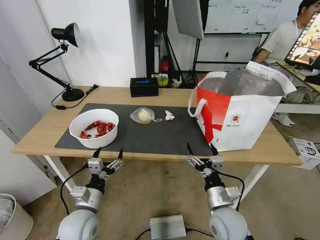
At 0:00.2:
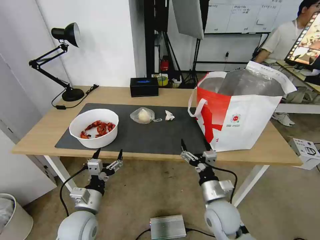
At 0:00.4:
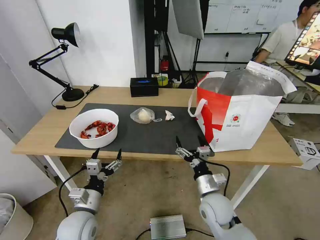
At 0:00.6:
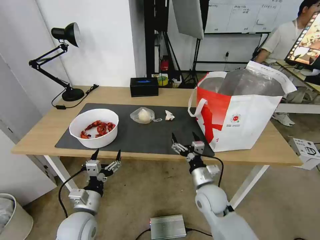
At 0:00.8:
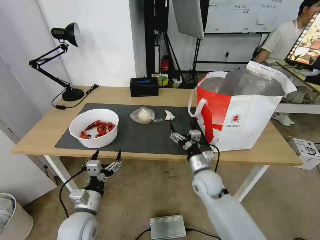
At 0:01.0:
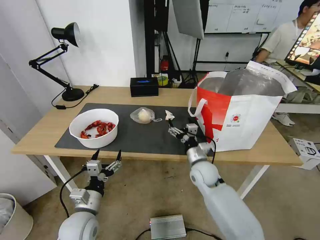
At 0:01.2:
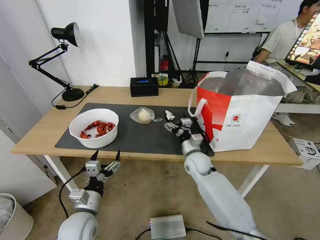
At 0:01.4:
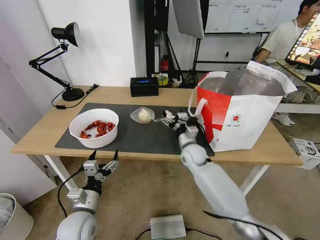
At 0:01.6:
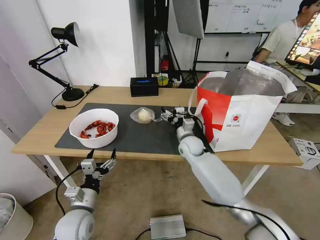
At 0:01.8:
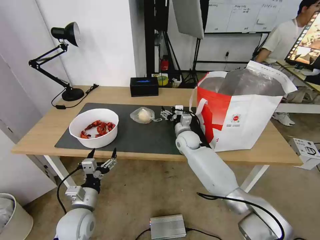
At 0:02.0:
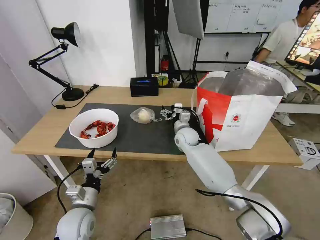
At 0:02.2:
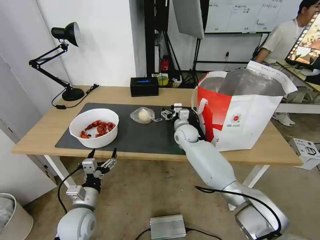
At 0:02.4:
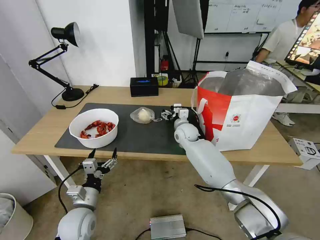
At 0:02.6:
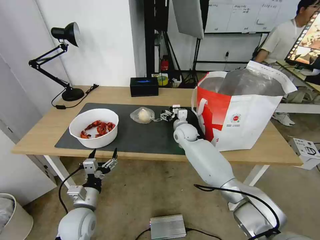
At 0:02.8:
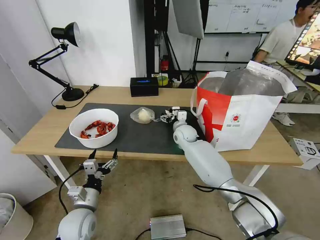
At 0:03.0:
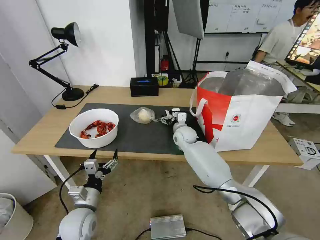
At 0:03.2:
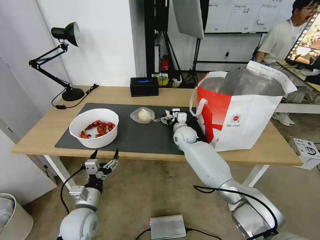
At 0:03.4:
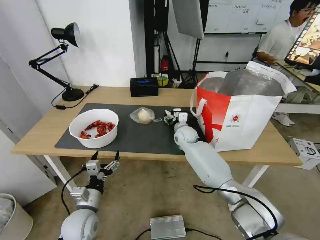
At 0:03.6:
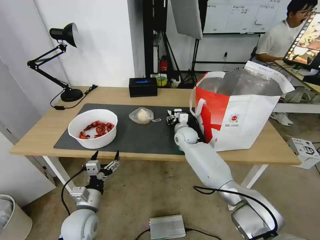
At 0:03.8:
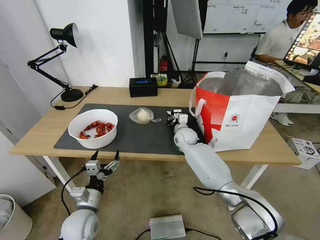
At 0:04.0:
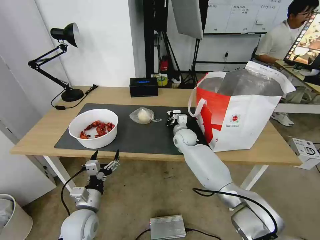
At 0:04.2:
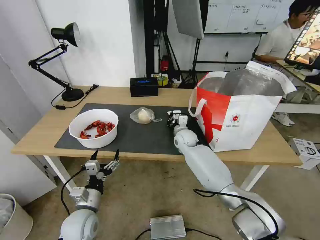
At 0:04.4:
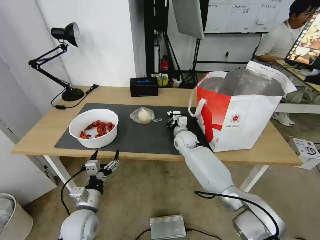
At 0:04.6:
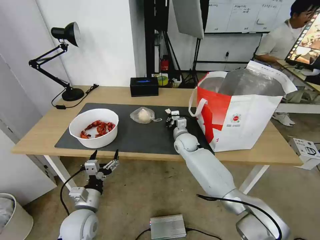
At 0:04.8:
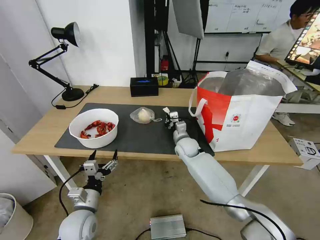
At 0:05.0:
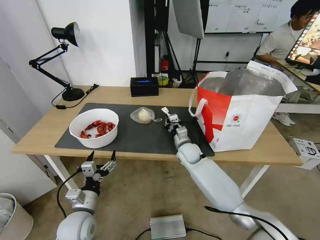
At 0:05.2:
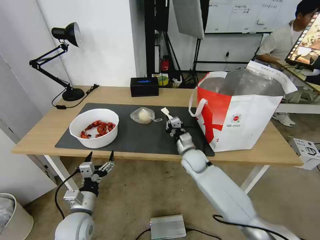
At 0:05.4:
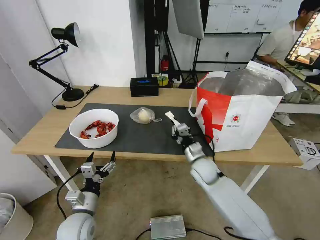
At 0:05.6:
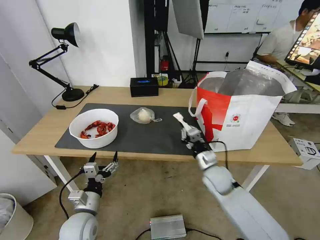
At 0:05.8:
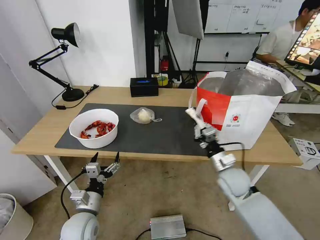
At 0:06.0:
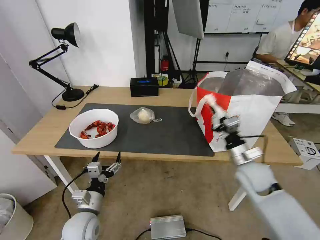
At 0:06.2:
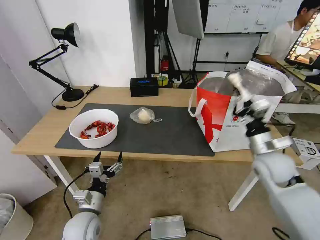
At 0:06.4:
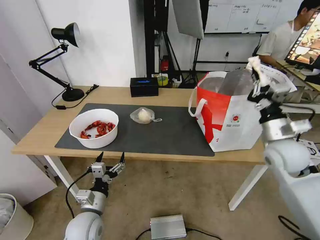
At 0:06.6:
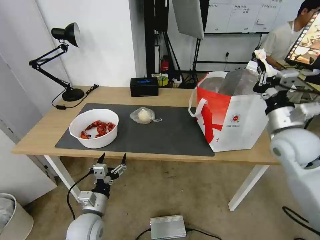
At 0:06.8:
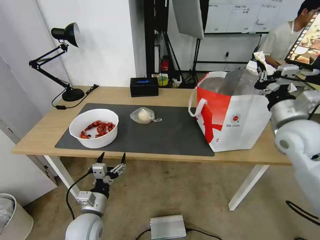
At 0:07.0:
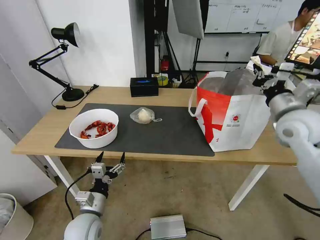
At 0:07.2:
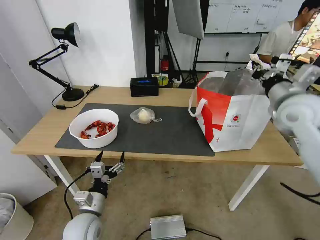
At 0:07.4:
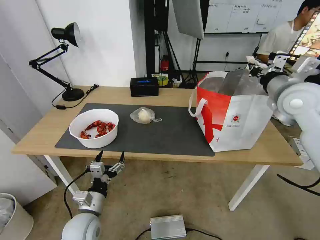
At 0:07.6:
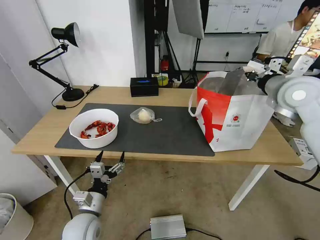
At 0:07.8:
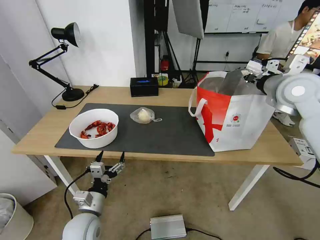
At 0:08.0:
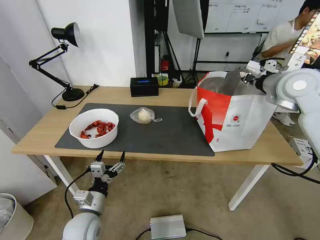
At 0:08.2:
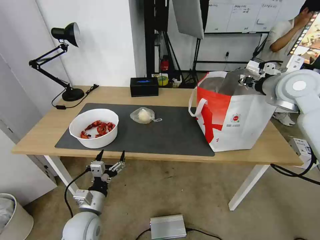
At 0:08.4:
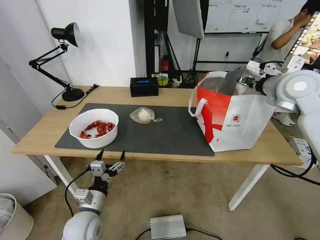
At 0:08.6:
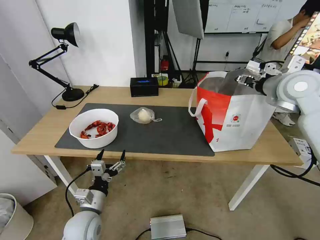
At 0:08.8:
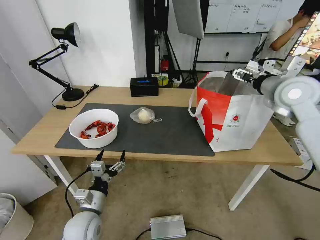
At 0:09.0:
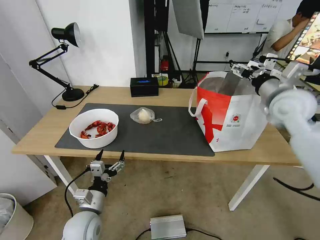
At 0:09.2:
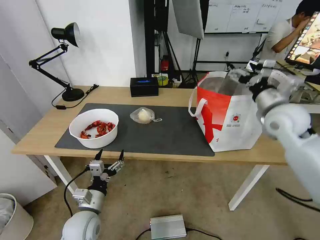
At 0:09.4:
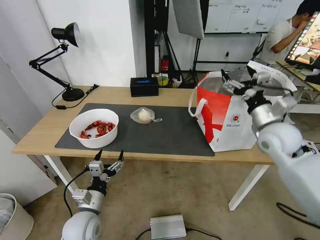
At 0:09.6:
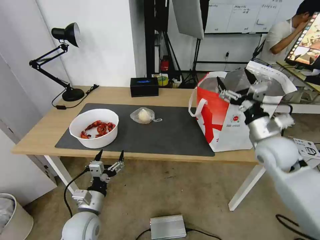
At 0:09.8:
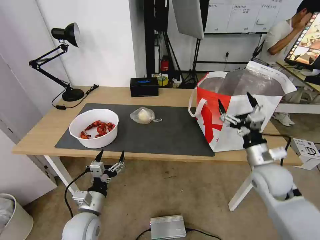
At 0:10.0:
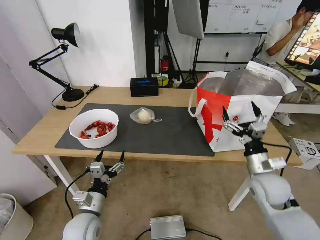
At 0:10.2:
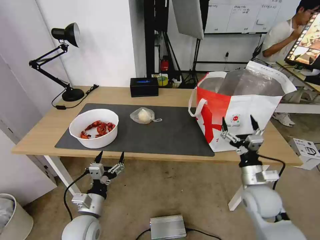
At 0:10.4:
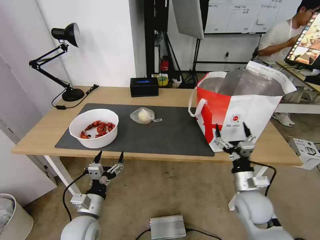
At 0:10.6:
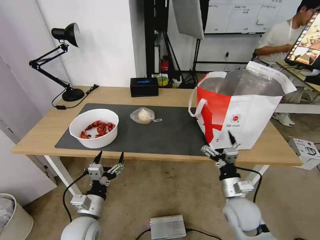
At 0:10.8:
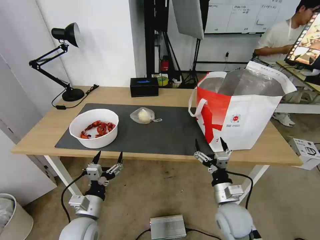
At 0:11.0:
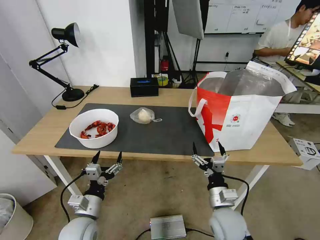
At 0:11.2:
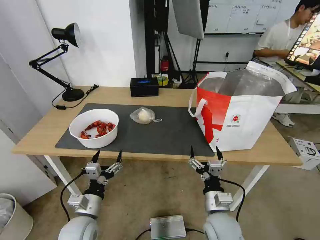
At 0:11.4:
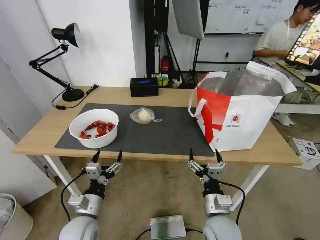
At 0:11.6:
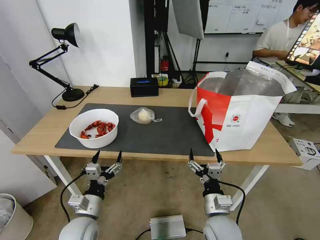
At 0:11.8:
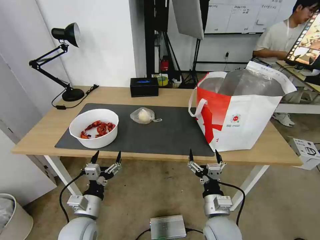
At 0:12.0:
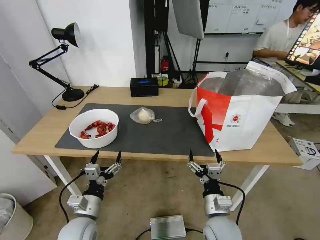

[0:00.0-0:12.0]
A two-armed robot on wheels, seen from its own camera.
Task of the whole recording: Pick up the trash from the table and place it into the takeout bag.
0:00.0 to 0:01.6: The right gripper travels forward by roughly 30 cm.
0:01.6 to 0:03.0: The right gripper is displaced forward by roughly 5 cm.
0:03.0 to 0:04.4: The right gripper closes its fingers.
0:04.4 to 0:06.0: The right gripper goes some 25 cm backward and to the right.
0:06.0 to 0:07.6: The right gripper heads upward and forward, covering approximately 25 cm.
0:07.6 to 0:09.0: The right gripper opens its fingers.
0:09.0 to 0:10.4: The right gripper goes approximately 30 cm downward and backward.
0:10.4 to 0:12.0: The right gripper moves to the left and backward, roughly 15 cm.

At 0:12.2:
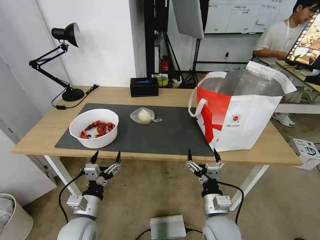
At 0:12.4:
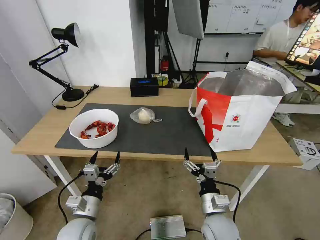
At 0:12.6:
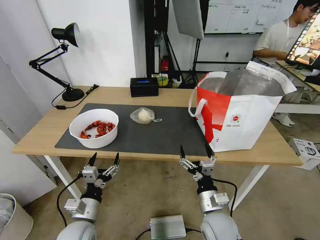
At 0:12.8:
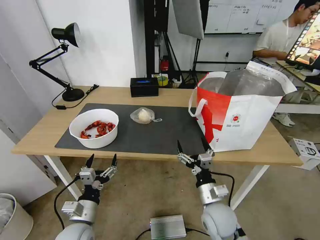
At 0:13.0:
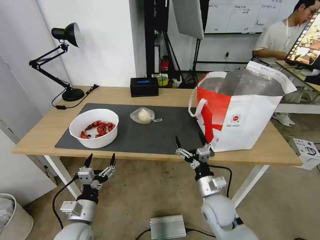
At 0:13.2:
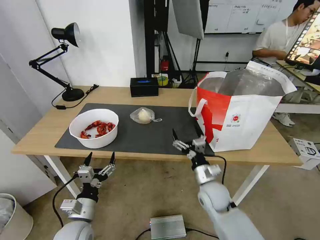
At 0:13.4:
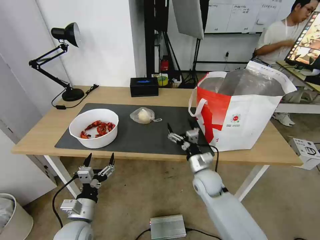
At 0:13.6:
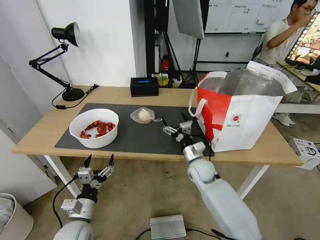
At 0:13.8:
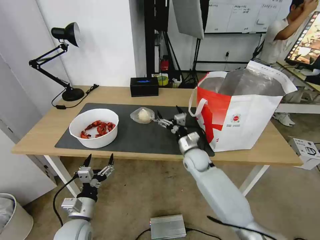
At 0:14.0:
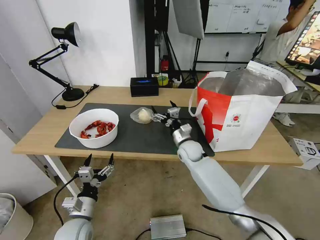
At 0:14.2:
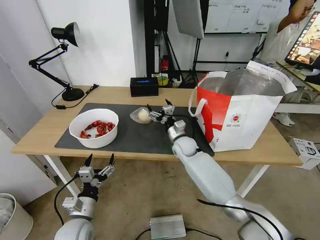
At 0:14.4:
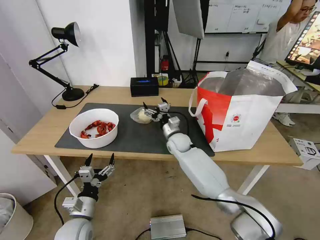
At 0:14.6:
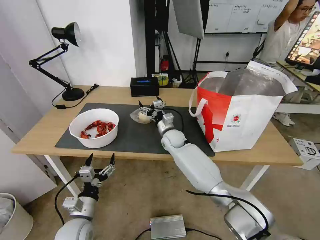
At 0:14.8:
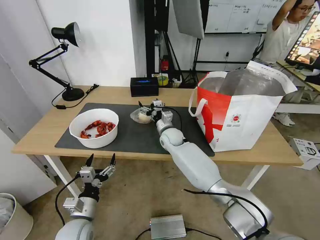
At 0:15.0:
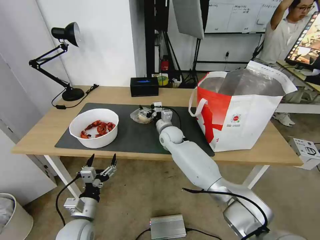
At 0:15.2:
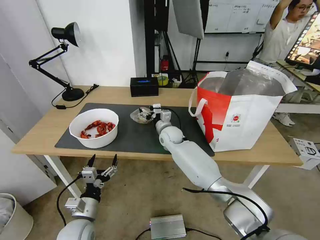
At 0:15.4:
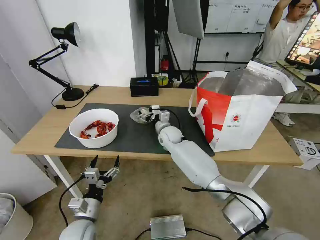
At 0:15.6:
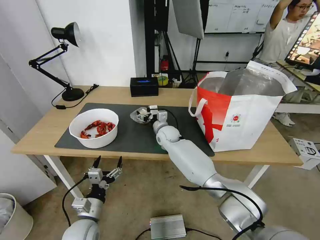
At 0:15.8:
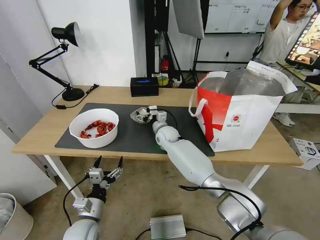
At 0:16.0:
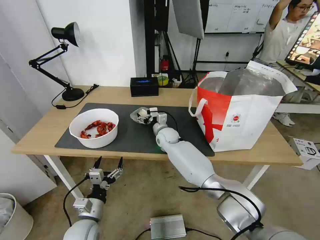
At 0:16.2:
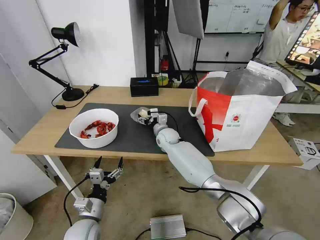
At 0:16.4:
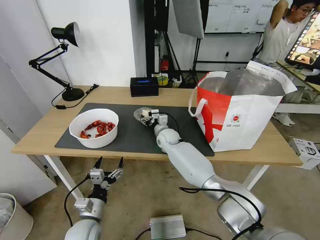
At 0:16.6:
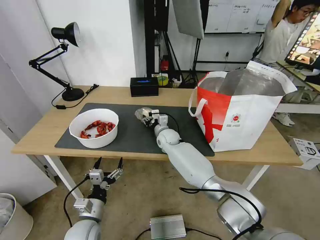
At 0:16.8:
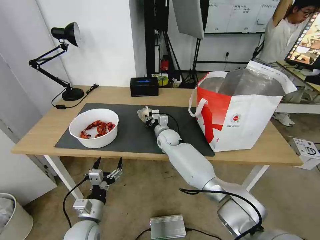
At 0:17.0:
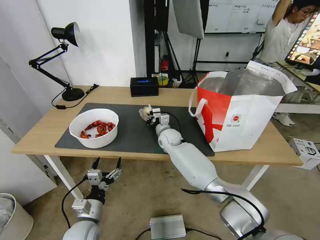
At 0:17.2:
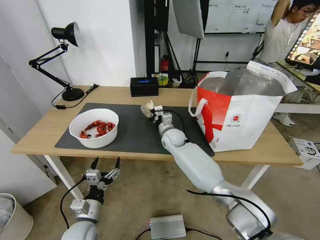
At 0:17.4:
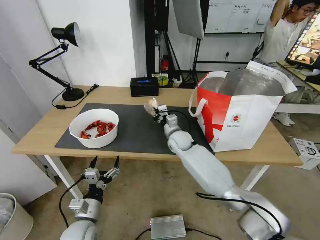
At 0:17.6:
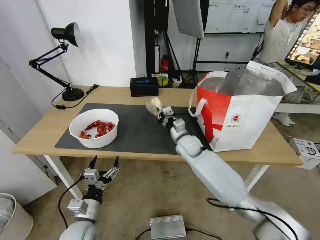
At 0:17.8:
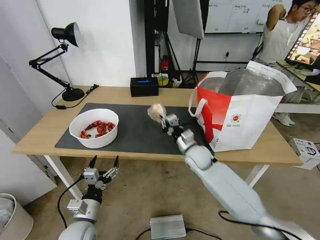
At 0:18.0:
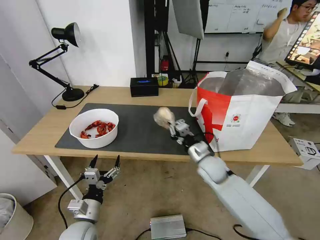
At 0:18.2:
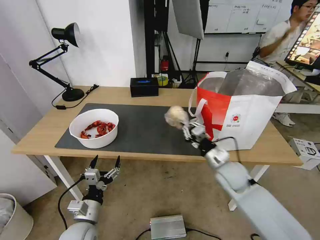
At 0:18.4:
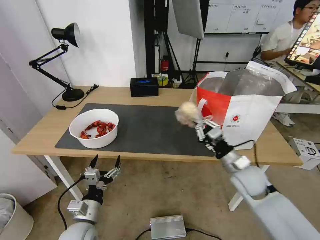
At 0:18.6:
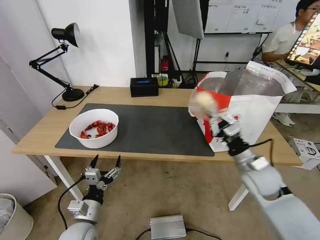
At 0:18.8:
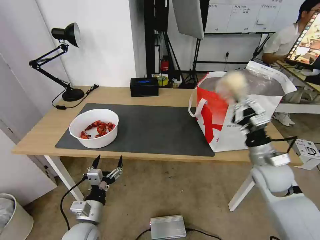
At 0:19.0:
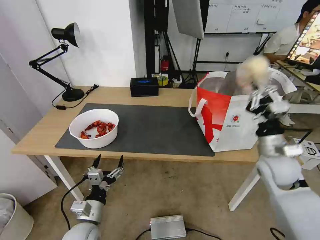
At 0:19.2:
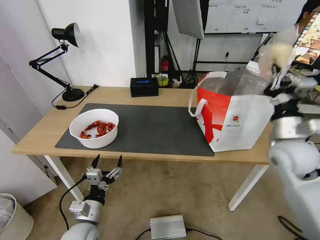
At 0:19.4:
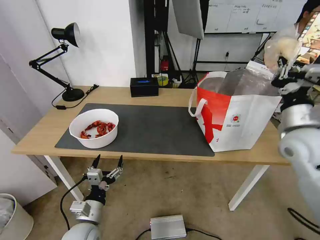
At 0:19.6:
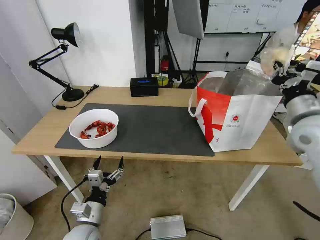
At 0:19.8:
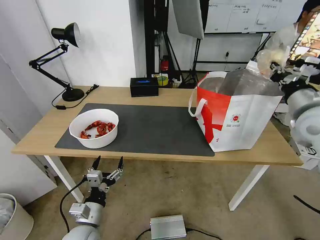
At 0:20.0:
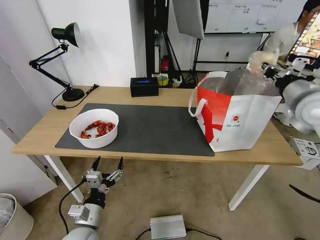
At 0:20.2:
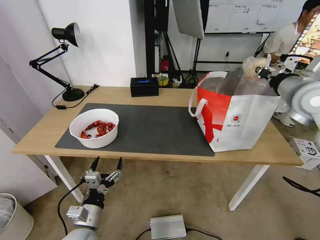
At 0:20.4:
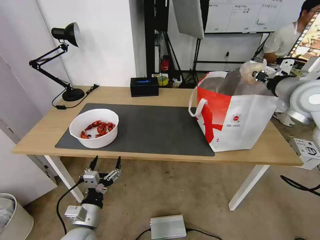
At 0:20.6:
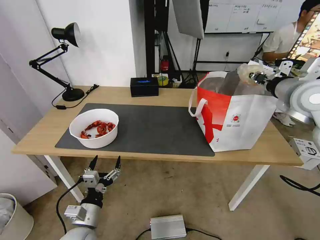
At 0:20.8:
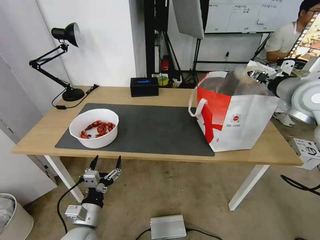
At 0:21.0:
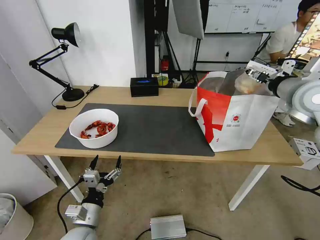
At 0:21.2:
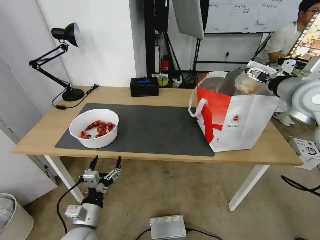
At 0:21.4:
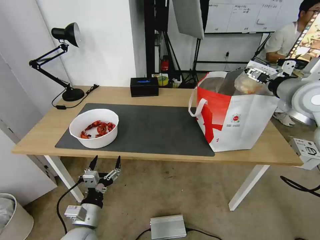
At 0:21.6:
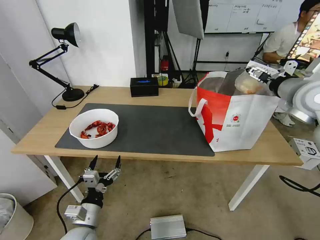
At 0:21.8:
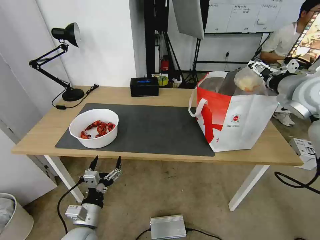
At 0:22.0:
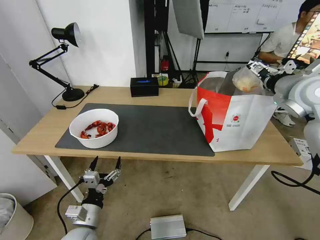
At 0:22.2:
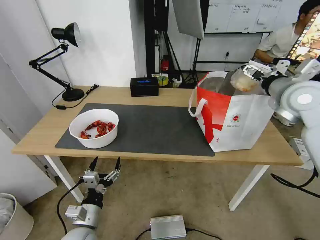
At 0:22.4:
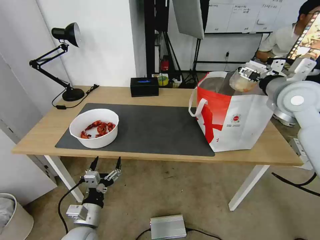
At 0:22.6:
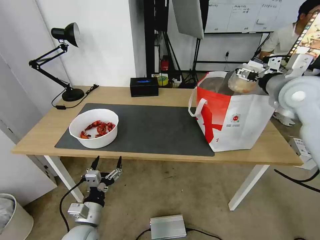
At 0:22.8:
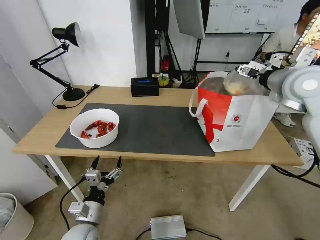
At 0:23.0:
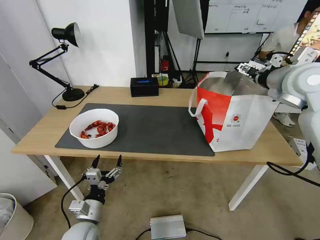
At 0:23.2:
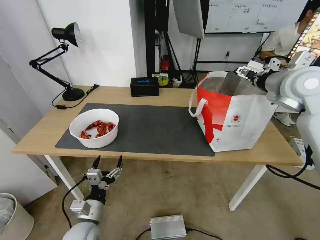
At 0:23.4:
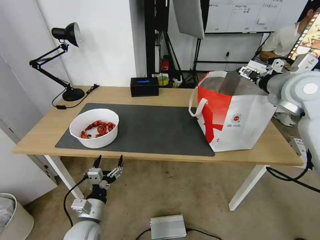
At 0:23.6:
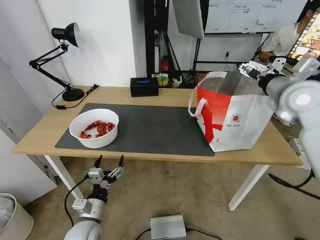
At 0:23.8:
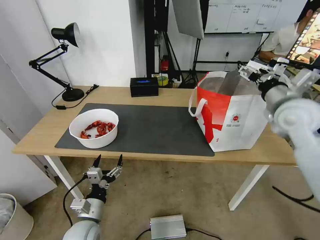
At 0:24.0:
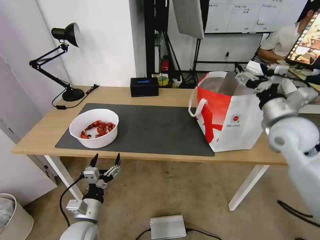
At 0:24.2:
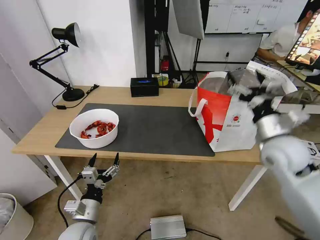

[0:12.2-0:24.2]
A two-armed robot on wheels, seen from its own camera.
Task of the whole recording: Pick up the trash from the table and place it into the takeout bag.
0:12.2 to 0:13.8: The right gripper shifts roughly 25 cm forward.
0:13.8 to 0:15.2: The right gripper shifts some 15 cm to the left and forward.
0:15.2 to 0:16.6: The right gripper closes up.
0:16.6 to 0:18.2: The right gripper heads to the right and backward, covering roughly 25 cm, and closes.
0:18.2 to 0:19.8: The right gripper is displaced upward and to the right by roughly 30 cm.
0:19.8 to 0:21.2: The right gripper ends up approximately 5 cm from where it was, and opens.
0:21.2 to 0:22.6: The grippers stay close to where they were, moving slightly.
0:22.6 to 0:24.2: The right gripper is displaced downward and backward by approximately 15 cm.
